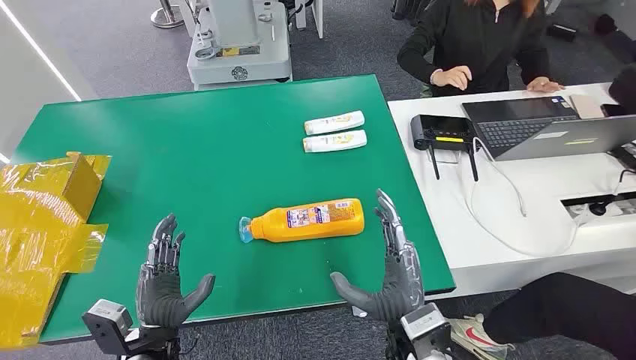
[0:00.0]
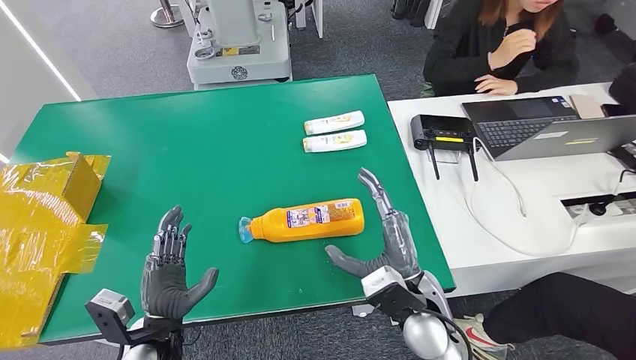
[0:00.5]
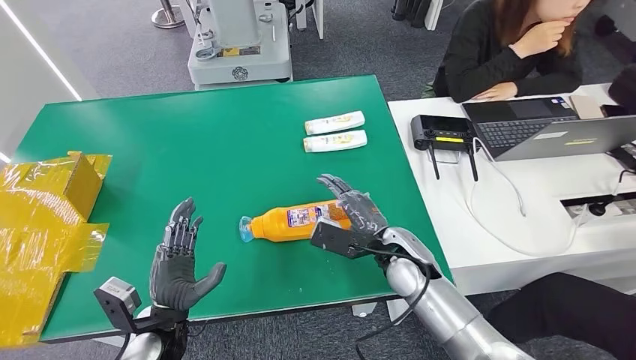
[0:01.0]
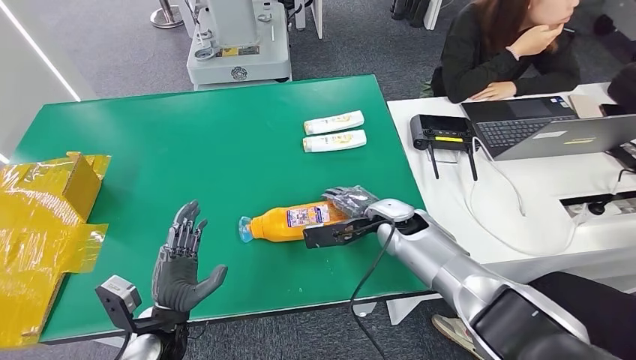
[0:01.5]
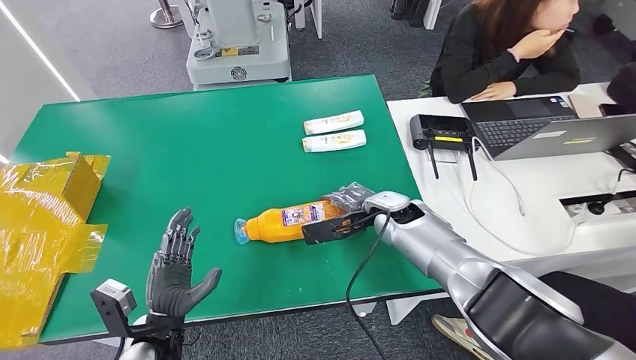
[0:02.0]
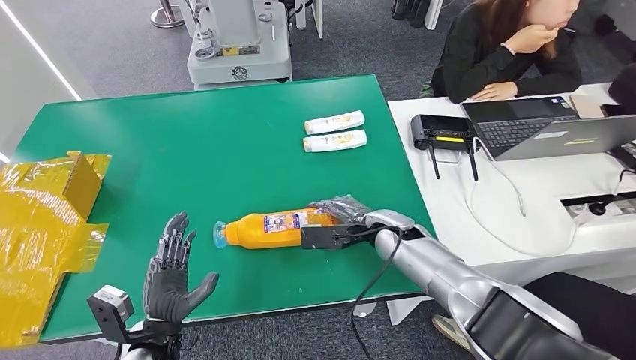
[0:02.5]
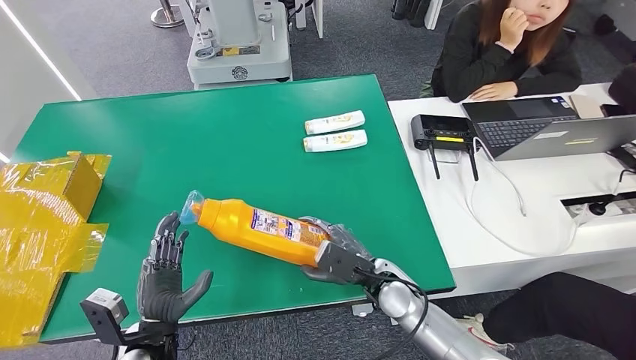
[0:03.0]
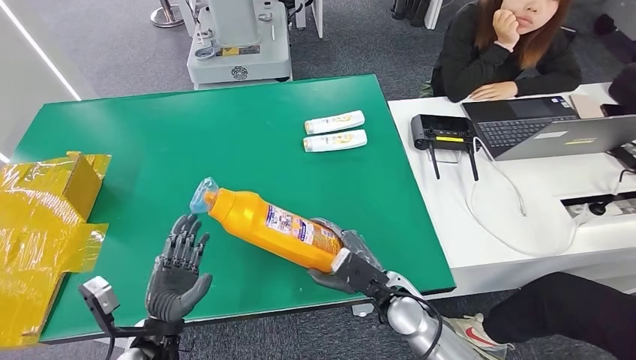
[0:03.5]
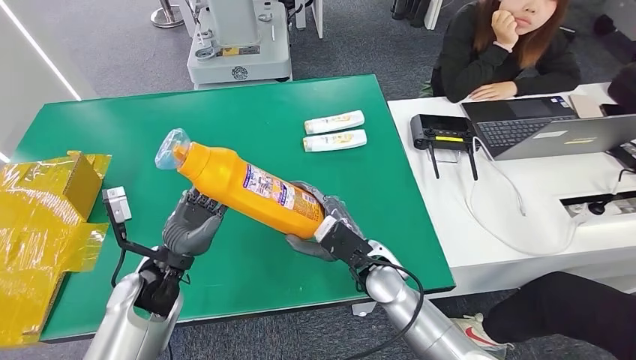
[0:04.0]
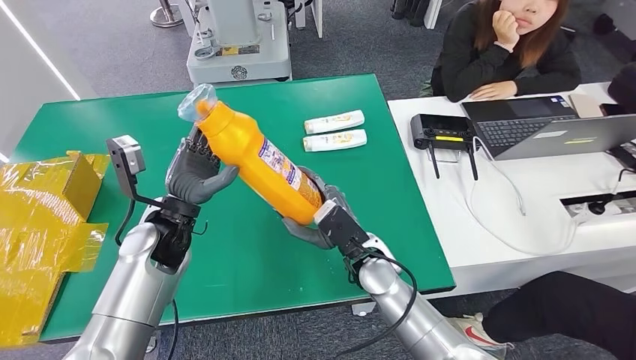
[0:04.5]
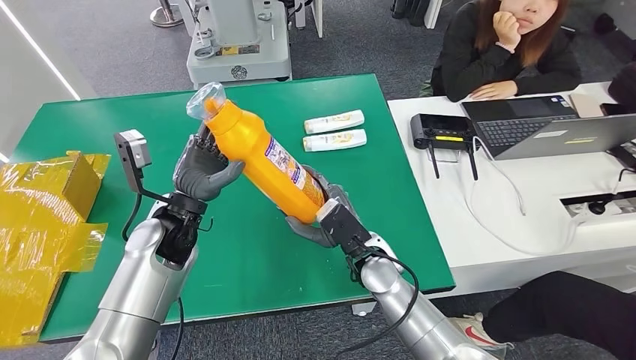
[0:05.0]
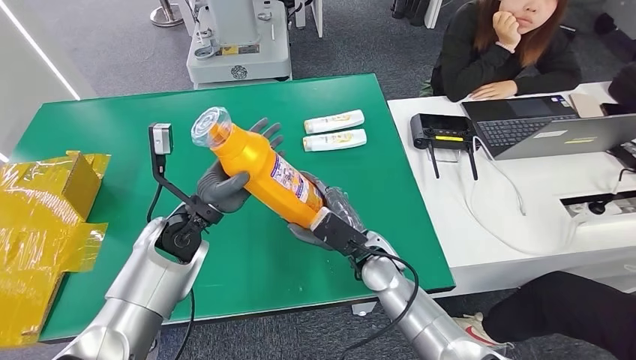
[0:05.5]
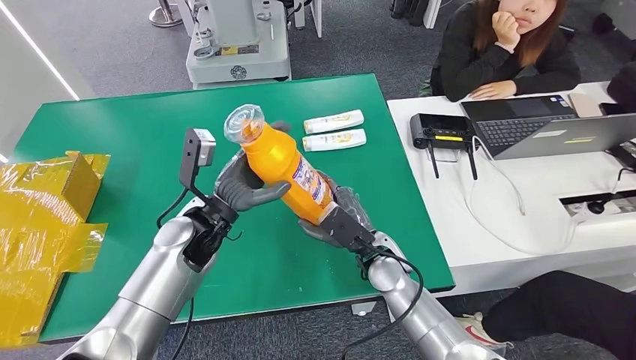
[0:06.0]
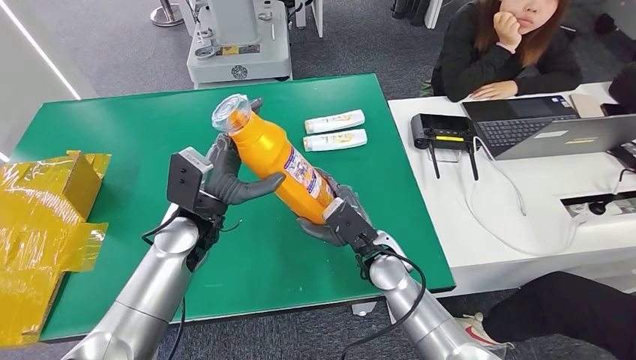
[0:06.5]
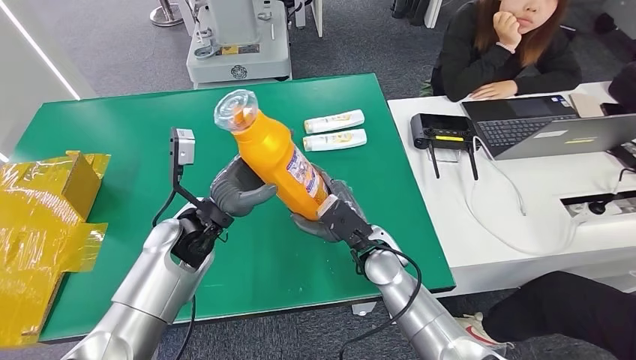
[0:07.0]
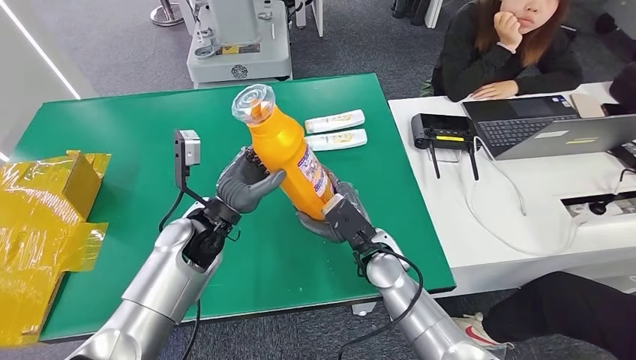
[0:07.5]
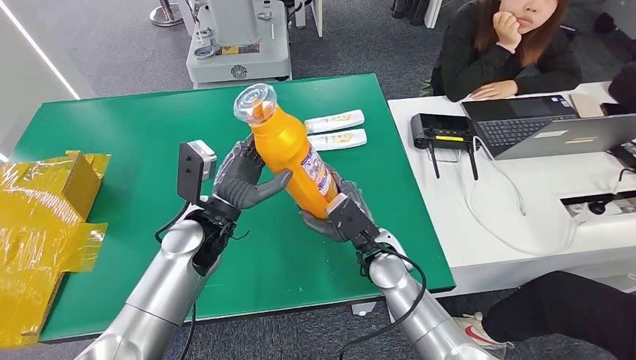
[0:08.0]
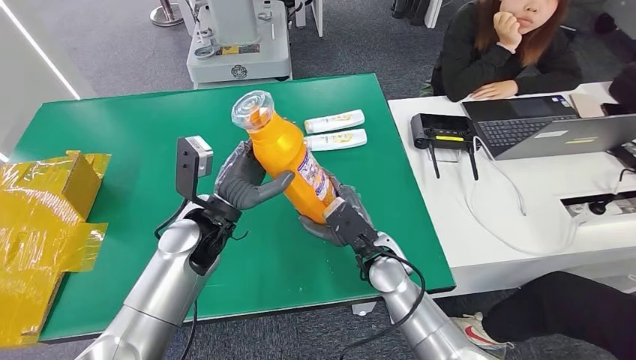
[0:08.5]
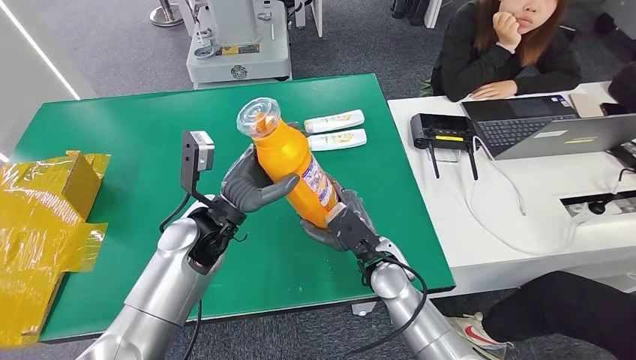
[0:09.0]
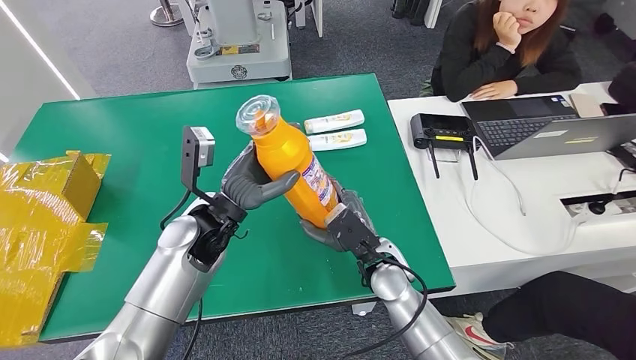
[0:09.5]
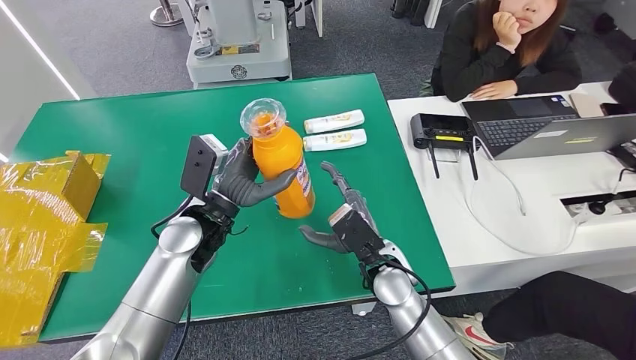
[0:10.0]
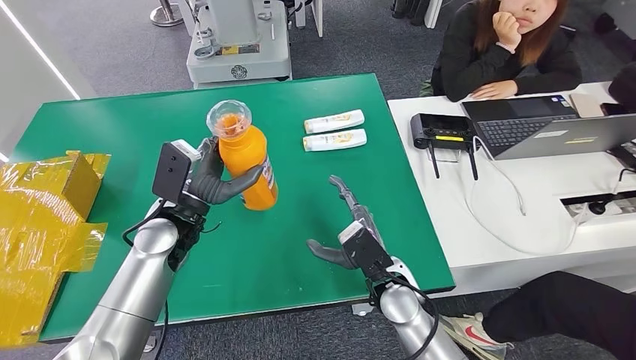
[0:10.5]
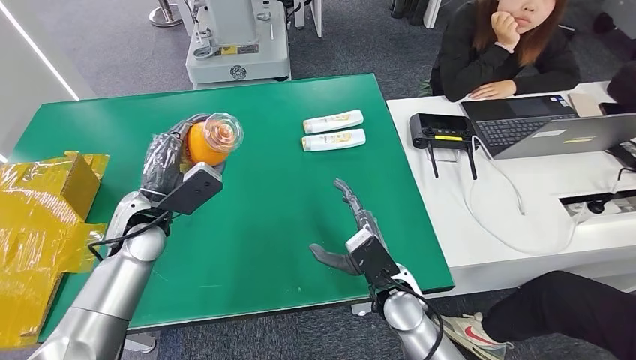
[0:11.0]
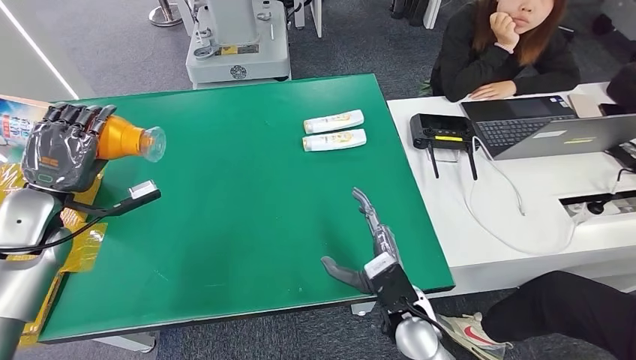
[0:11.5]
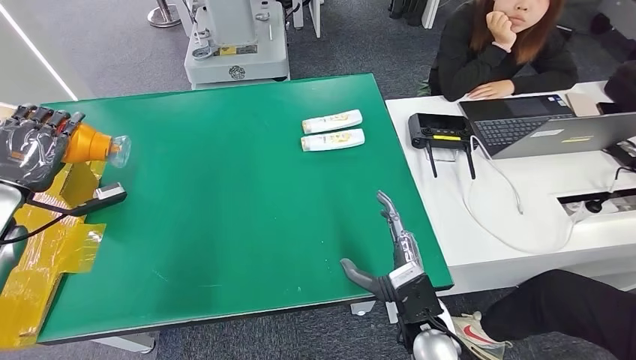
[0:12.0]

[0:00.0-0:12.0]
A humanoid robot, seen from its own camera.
Step, 0:00.0 to 0:03.0: Pick up the bottle from the table.
0:04.0 to 0:06.0: The left hand heads to the right and upward, covering about 10 cm.
0:08.0 to 0:10.0: There are only small adjustments of the hands.

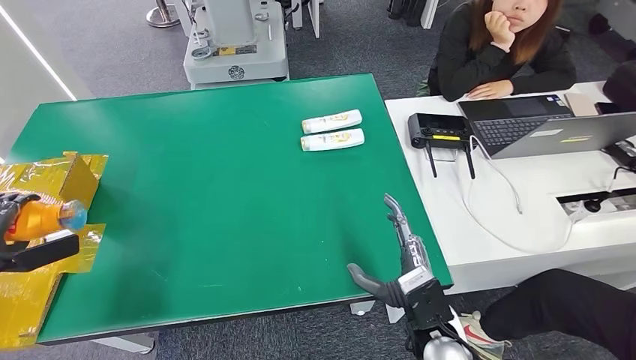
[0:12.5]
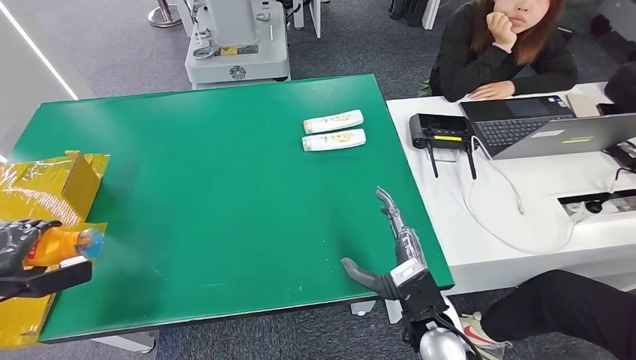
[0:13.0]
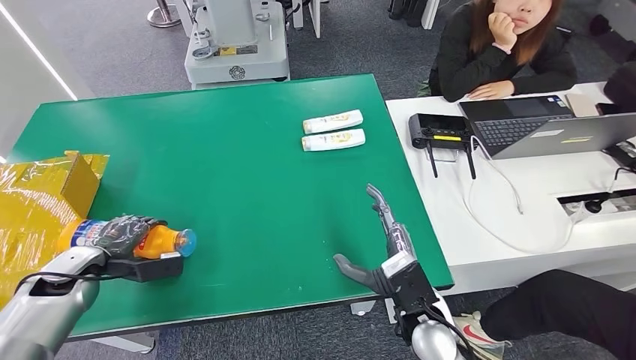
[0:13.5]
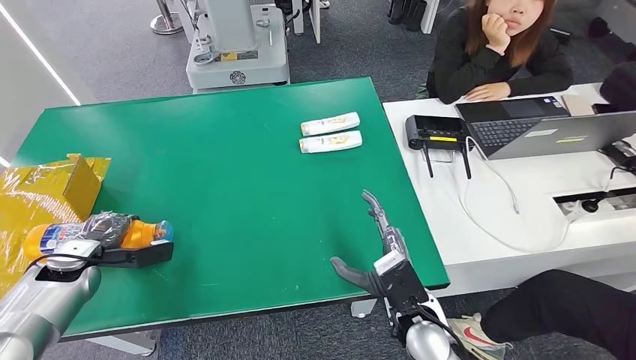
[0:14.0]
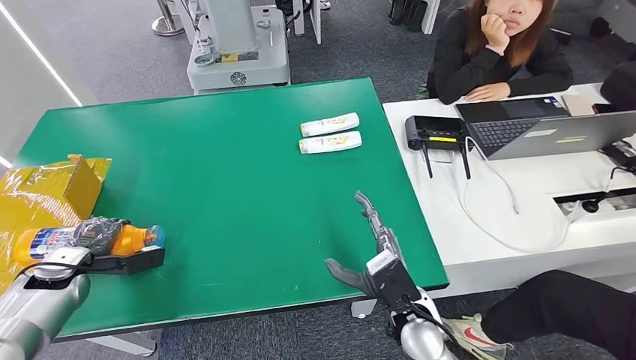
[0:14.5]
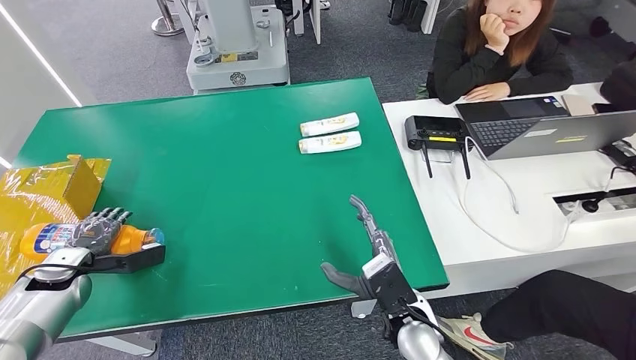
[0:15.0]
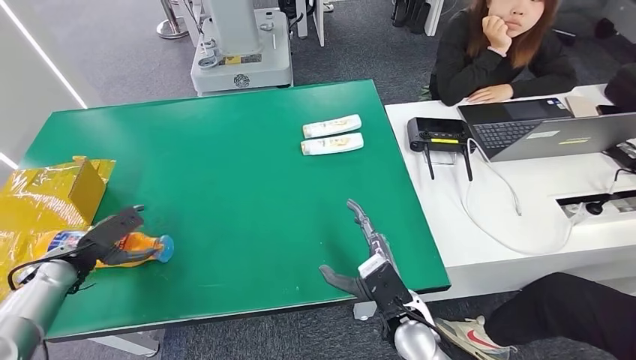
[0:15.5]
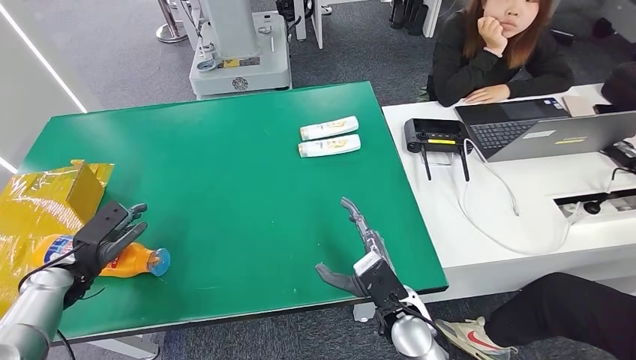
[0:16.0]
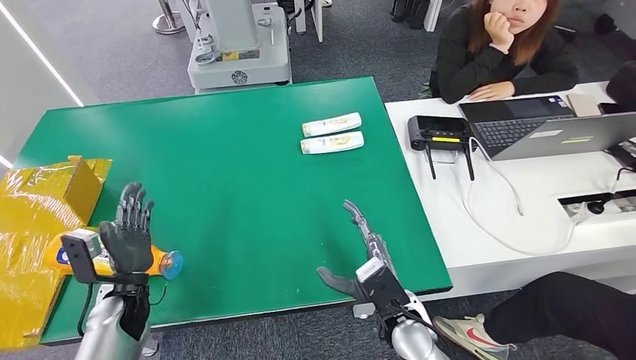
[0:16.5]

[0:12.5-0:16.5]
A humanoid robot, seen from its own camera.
Step, 0:12.5 to 0:16.5: Turn the bottle to the front side.
0:14.5 to 0:16.5: The left hand goes some 15 cm to the right.

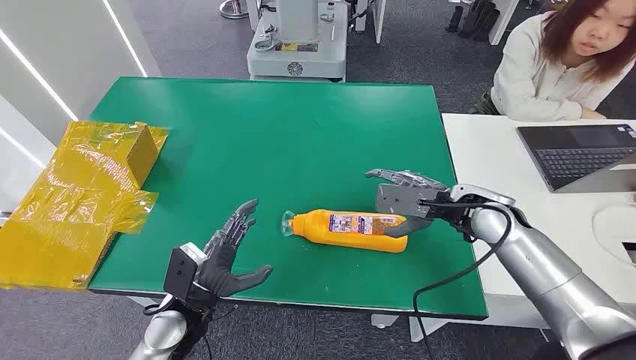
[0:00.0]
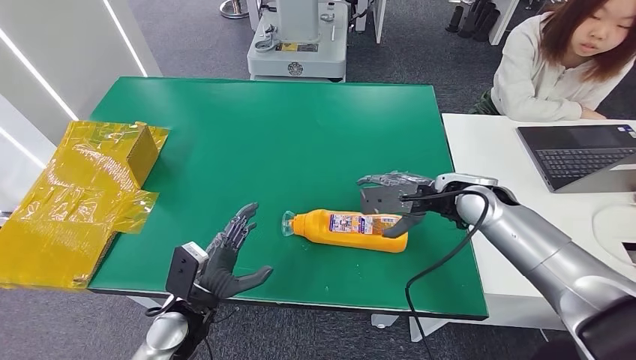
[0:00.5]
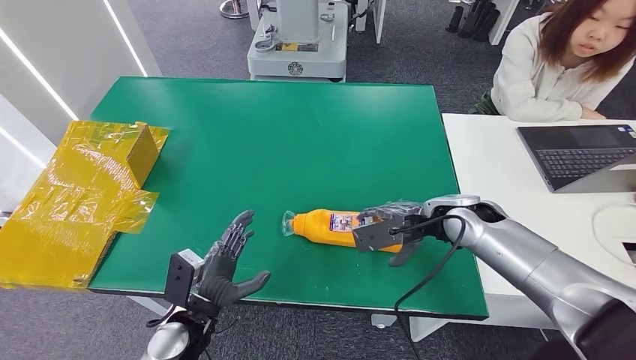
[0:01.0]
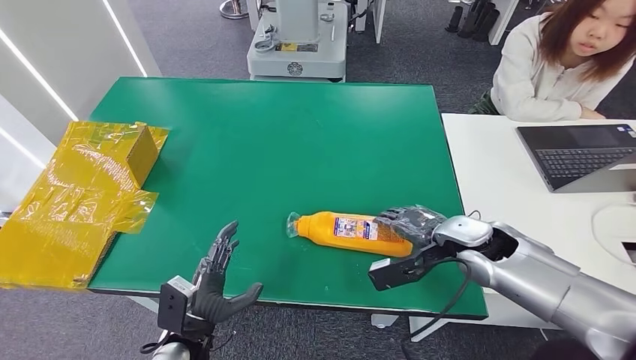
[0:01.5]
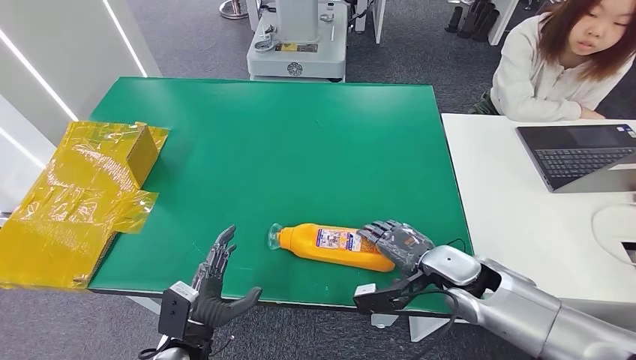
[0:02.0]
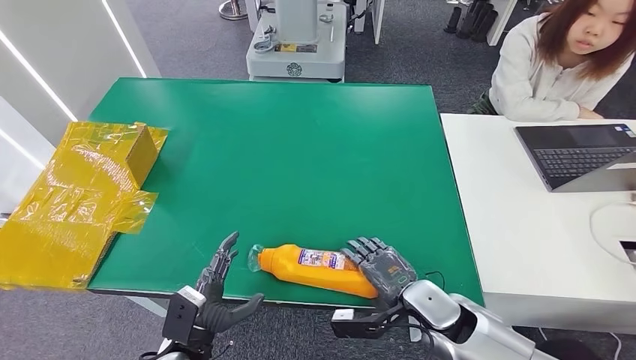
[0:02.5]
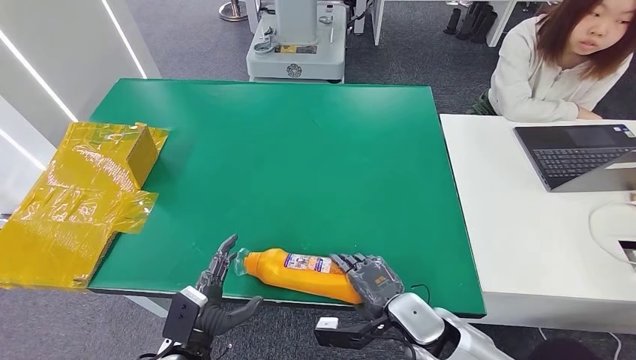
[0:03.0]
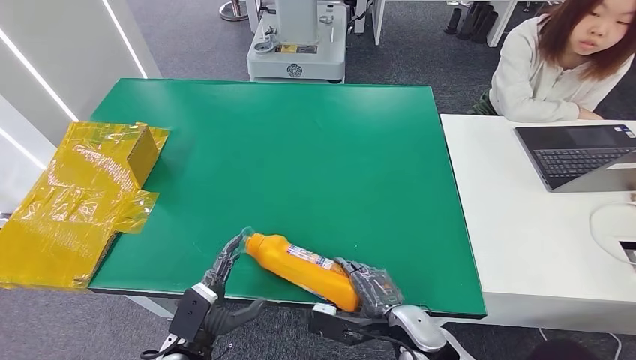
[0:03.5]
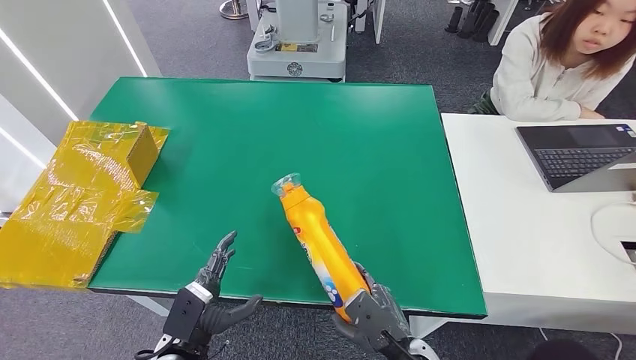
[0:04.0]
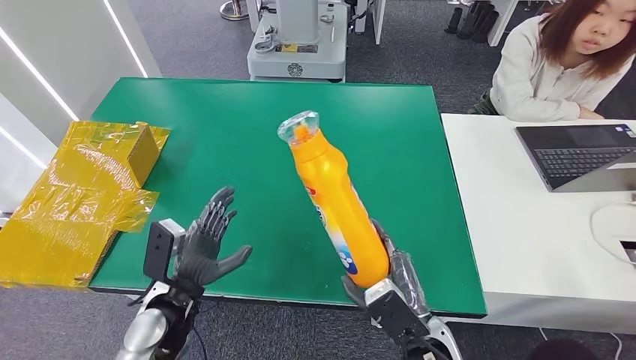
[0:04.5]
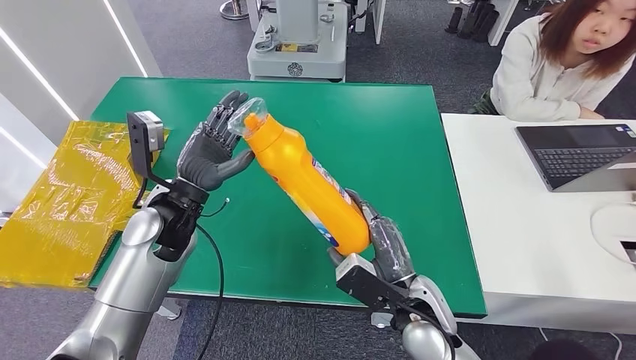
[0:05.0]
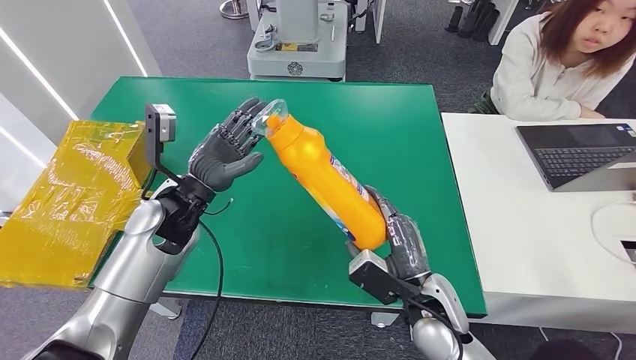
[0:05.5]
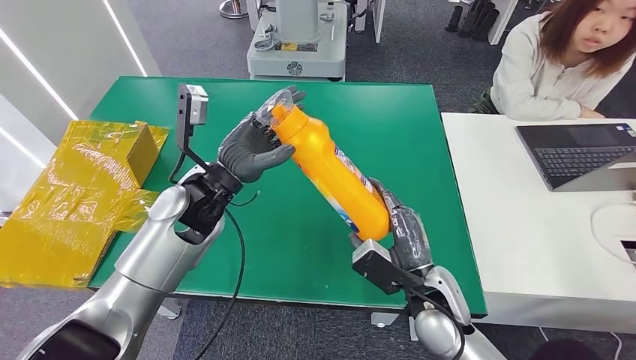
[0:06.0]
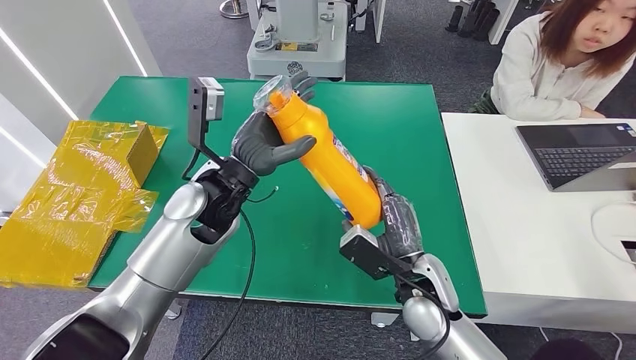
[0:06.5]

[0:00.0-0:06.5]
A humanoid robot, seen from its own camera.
Step, 0:00.0 to 0:05.0: Pick up the bottle from the table.
0:02.0 to 0:04.5: The right hand travels backward and to the left by roughly 15 cm. The left hand goes roughly 10 cm upward and forward.
0:04.5 to 0:06.5: The left hand shifts some 20 cm upward, forward and to the right. The right hand goes roughly 10 cm forward.
